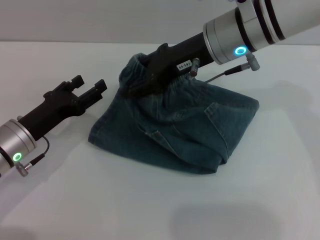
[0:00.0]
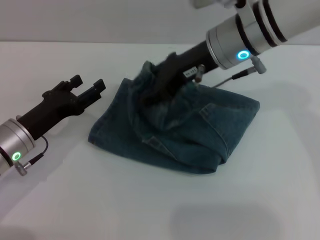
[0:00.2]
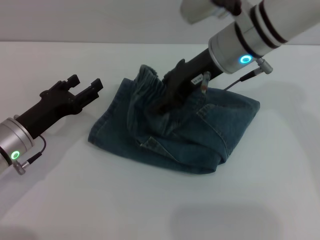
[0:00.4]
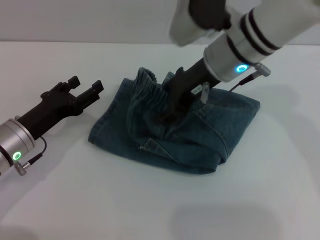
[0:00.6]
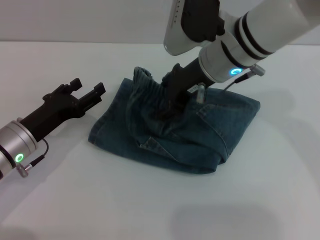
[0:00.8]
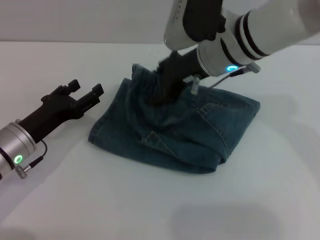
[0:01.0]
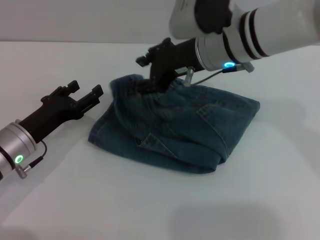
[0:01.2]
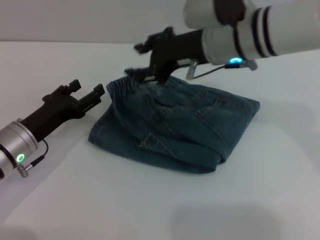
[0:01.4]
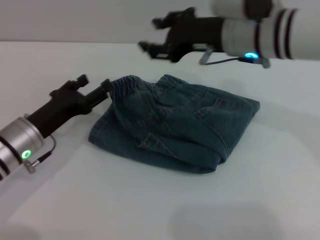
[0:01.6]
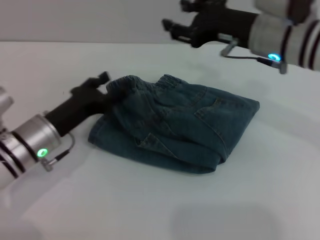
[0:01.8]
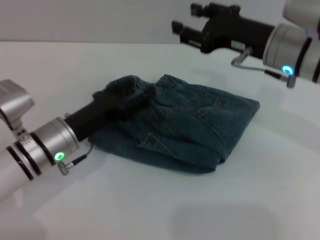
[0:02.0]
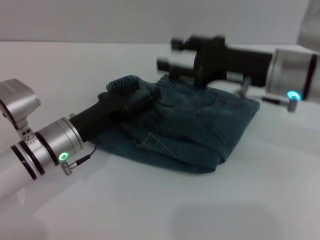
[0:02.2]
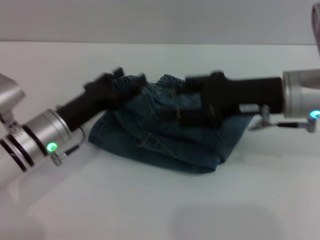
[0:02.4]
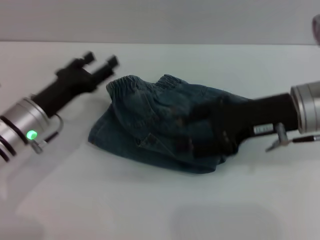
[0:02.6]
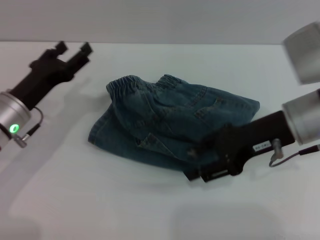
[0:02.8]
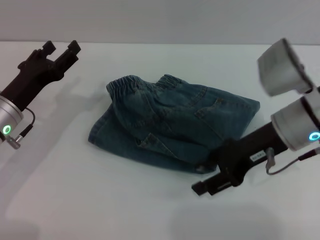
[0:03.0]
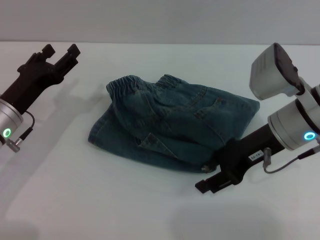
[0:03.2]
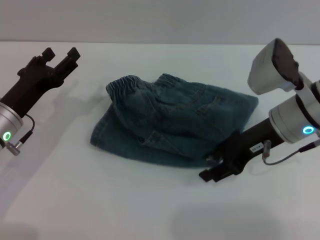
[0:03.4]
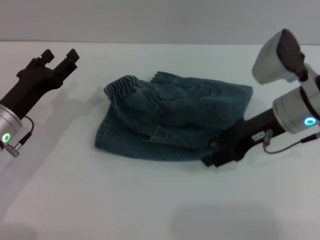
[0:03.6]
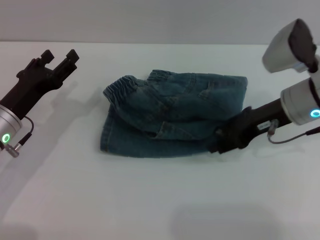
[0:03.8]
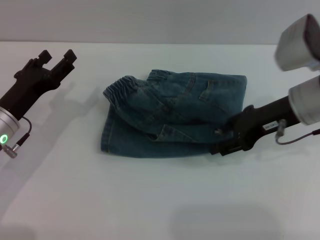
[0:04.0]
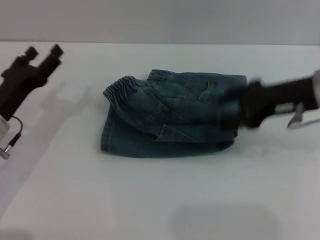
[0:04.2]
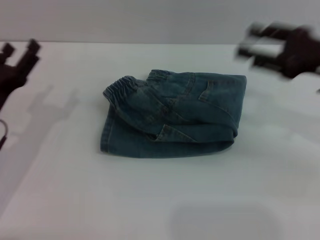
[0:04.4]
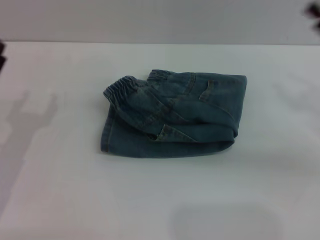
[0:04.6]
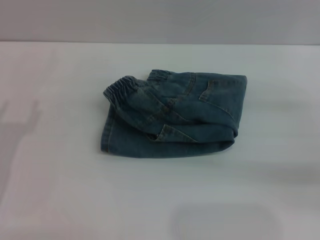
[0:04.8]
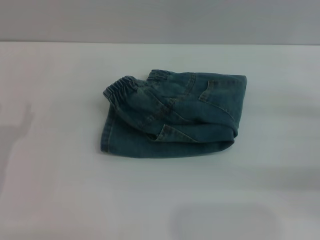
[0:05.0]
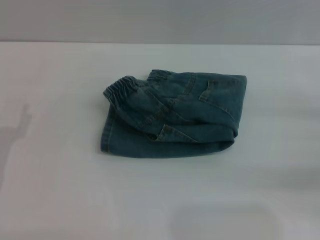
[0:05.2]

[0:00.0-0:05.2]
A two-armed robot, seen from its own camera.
Step, 1.6 to 4.2 s: Place the folded trousers onto the center area with the right grippers.
0.0 to 1.8 s: The right gripper travels to the right by roughly 5 cm.
1.8 to 3.4 s: The right gripper heads downward, covering roughly 5 cm.
3.4 to 5.2 s: The right gripper goes roughly 20 cm to the right. The left gripper moves backward and to the left, approximately 10 cm.

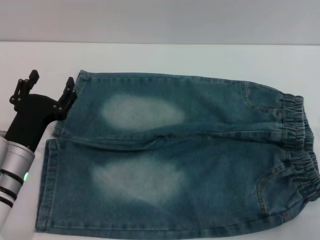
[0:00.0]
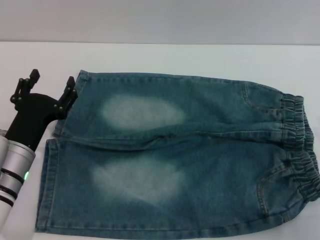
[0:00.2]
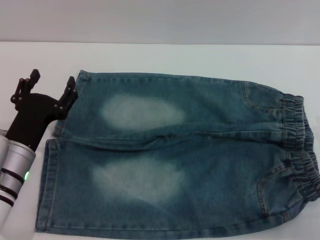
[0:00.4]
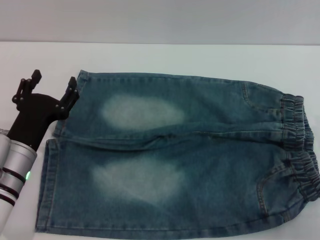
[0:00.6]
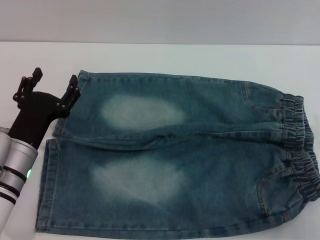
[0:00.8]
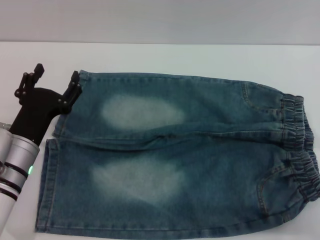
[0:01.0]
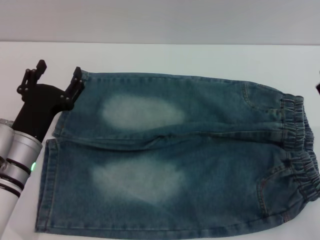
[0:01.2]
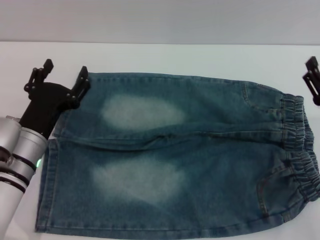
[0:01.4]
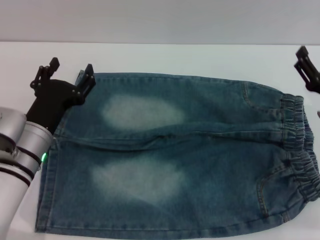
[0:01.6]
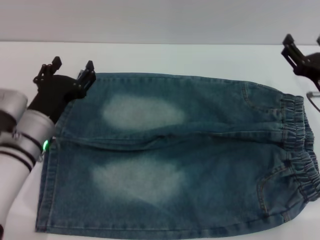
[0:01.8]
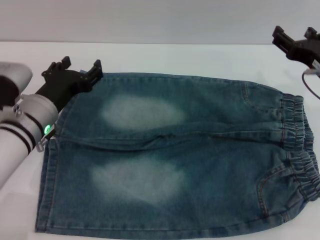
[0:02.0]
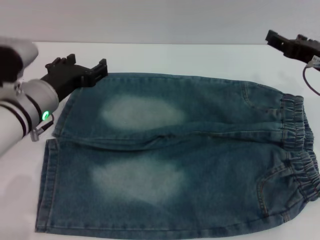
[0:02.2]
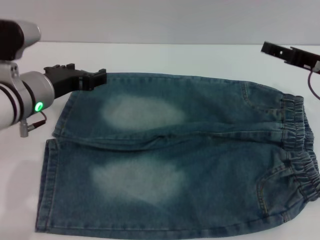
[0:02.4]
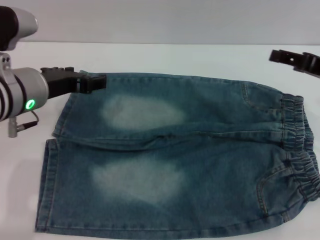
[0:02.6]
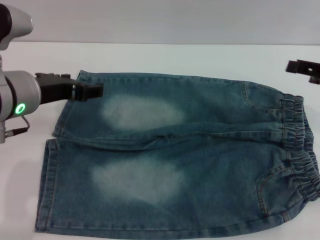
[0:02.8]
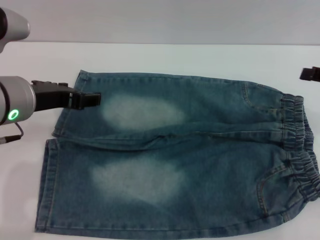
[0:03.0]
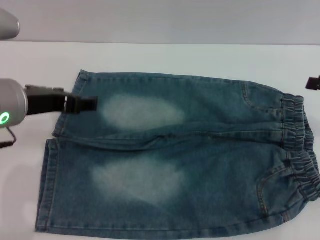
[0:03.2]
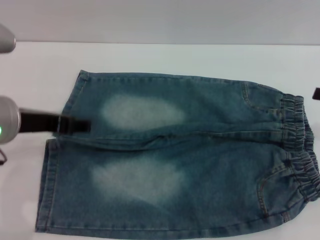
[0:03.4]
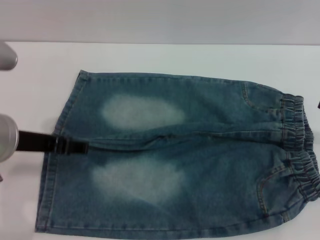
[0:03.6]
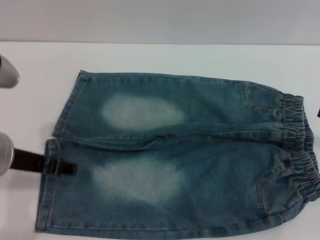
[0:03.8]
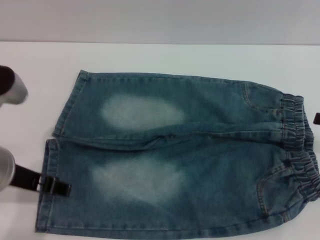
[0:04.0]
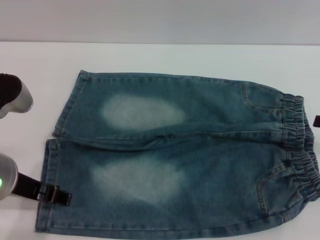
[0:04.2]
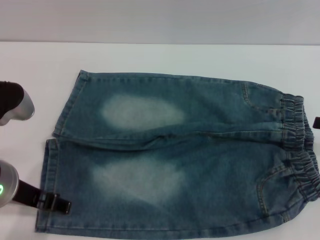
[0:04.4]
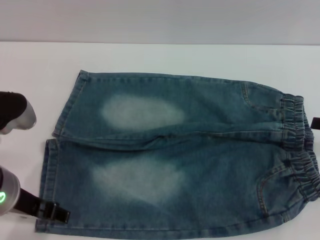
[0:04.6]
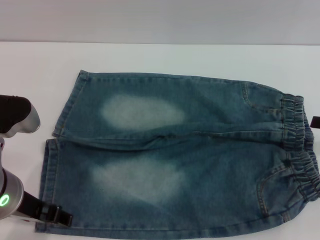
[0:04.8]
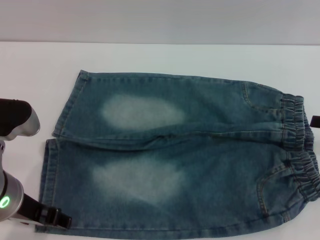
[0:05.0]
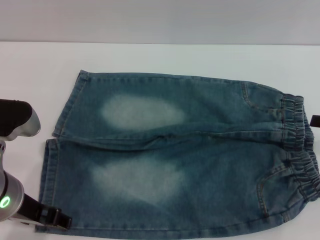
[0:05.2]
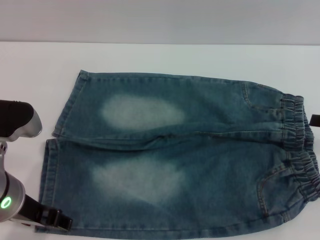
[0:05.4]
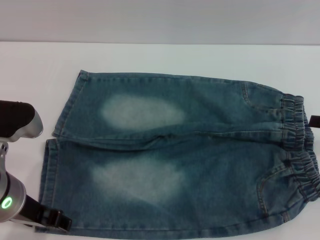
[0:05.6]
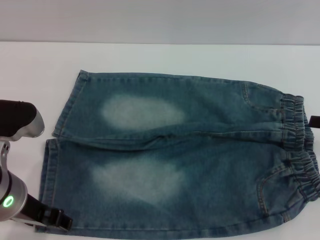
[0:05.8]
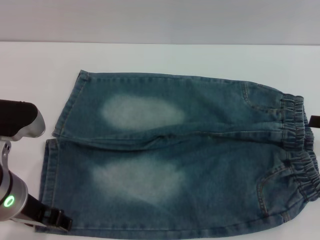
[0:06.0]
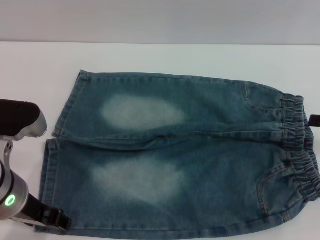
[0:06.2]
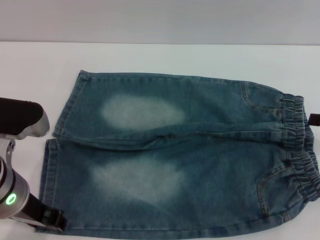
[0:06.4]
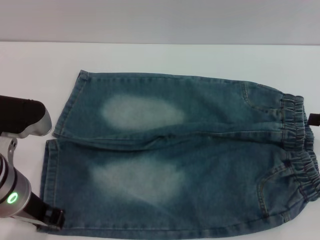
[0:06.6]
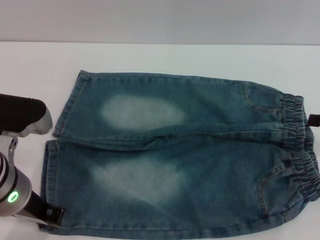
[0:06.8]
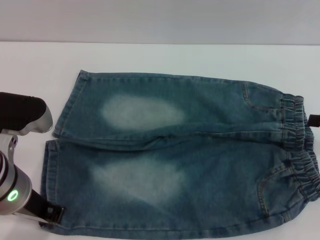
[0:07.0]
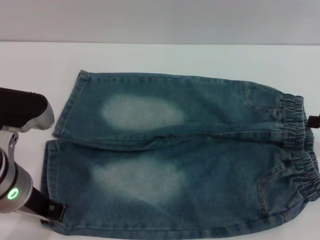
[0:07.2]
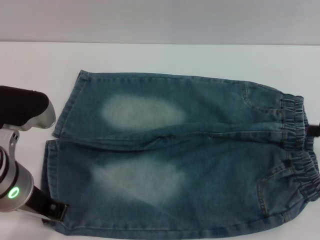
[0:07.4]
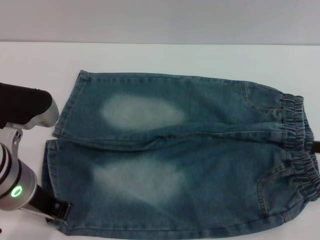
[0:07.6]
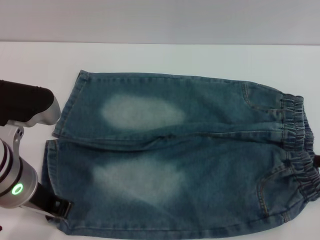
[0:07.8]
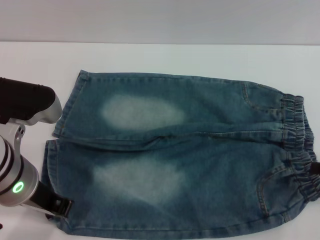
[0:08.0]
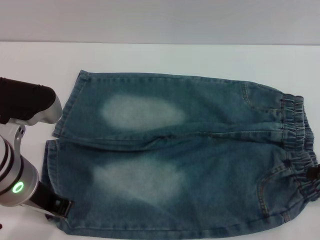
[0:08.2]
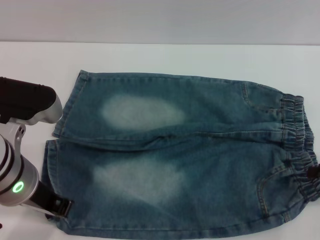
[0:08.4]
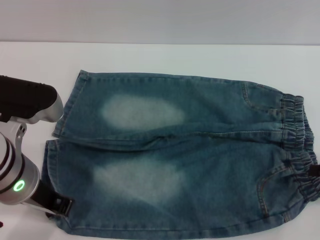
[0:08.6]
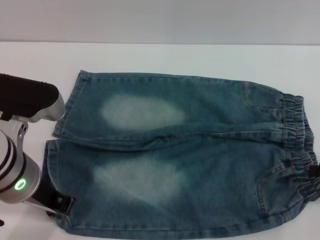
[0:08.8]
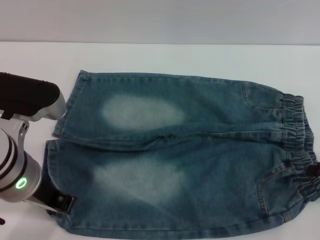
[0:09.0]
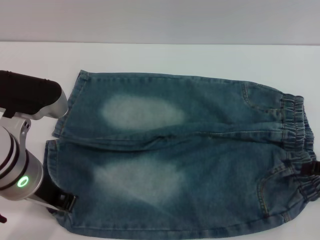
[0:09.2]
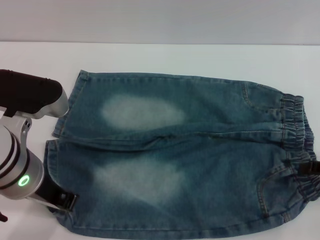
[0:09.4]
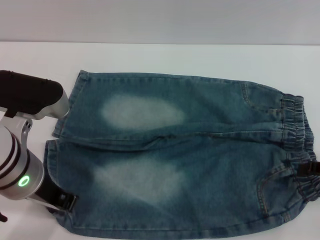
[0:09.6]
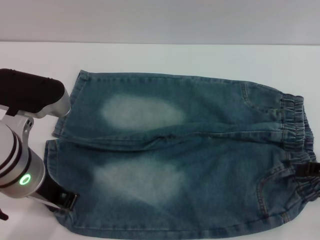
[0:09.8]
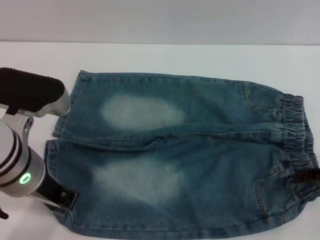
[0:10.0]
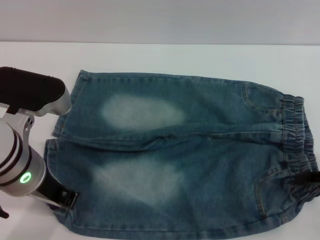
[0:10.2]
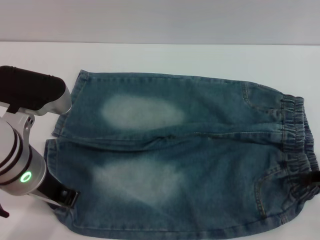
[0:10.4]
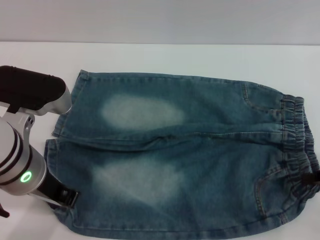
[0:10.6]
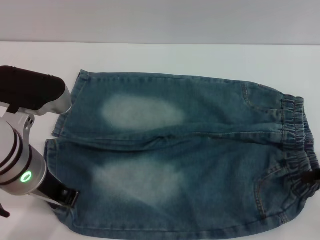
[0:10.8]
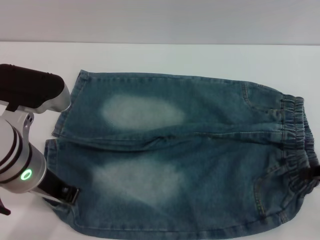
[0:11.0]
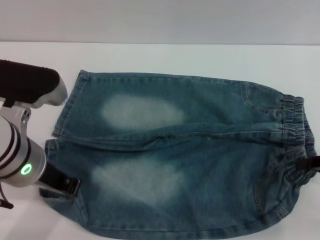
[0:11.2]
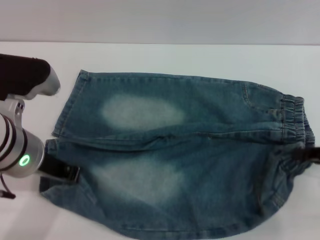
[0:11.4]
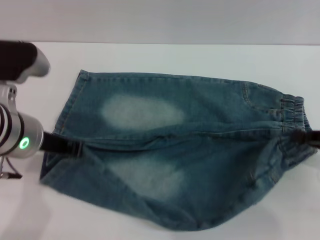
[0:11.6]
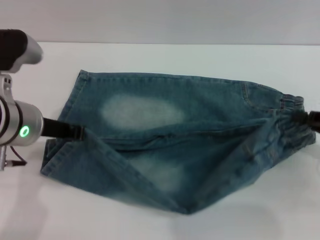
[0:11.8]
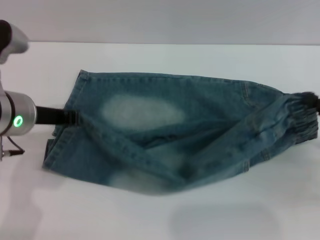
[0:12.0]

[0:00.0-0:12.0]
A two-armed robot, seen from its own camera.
0.0 to 1.6 s: The right gripper travels forward by about 10 cm.
1.6 to 3.0 s: The left gripper heads upward, covering roughly 15 cm, while the right gripper is displaced upward and to the right by roughly 15 cm.
3.0 to 4.4 s: The left gripper is displaced backward by roughly 5 cm.
4.4 to 6.0 s: The grippers move only a little.
6.0 to 7.6 s: The left gripper closes up.
7.6 to 9.0 s: There are only small adjustments of the grippers.
9.0 to 10.4 s: The right gripper closes.
10.4 to 12.0 s: The left gripper changes place by approximately 5 cm. The right gripper closes its fingers.

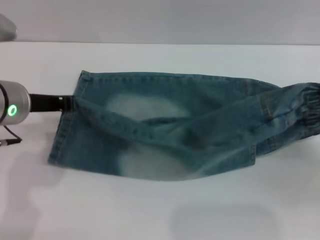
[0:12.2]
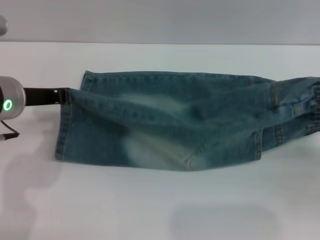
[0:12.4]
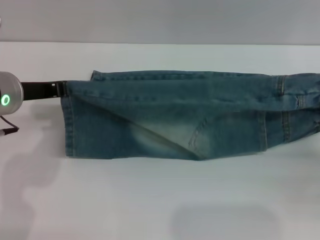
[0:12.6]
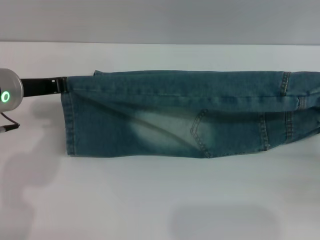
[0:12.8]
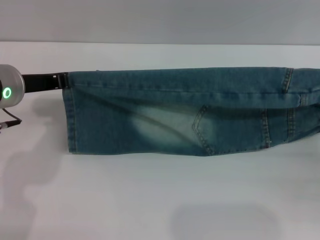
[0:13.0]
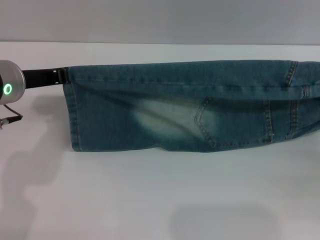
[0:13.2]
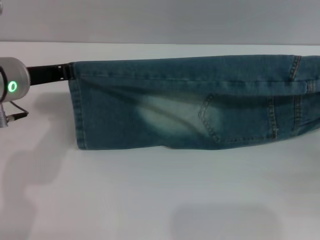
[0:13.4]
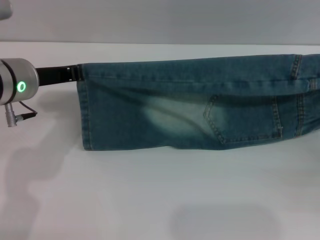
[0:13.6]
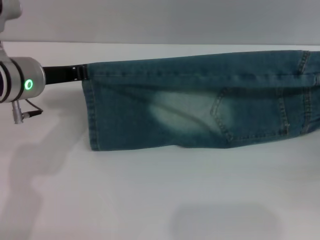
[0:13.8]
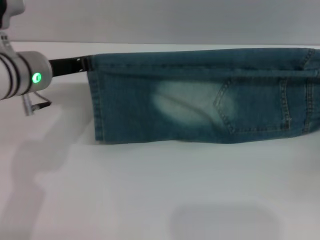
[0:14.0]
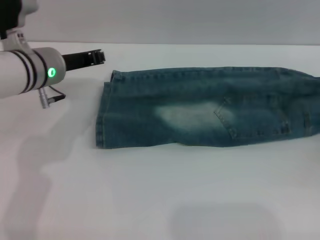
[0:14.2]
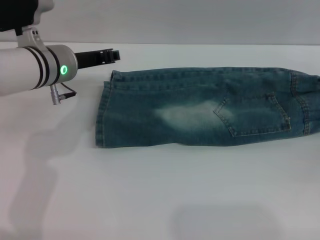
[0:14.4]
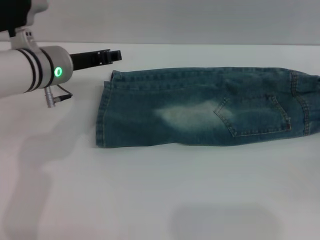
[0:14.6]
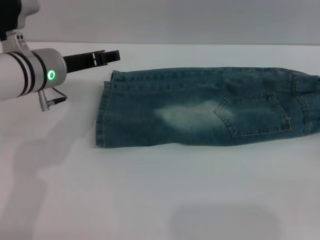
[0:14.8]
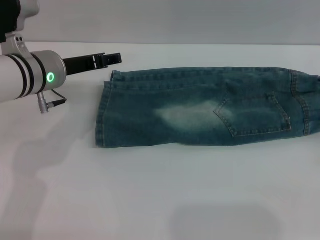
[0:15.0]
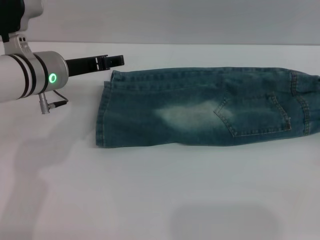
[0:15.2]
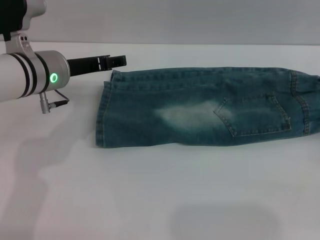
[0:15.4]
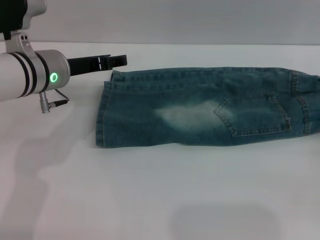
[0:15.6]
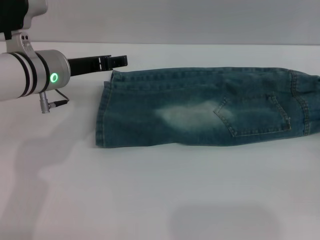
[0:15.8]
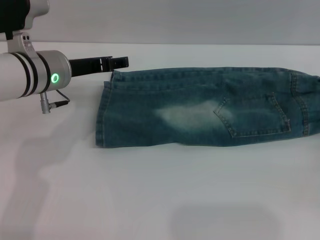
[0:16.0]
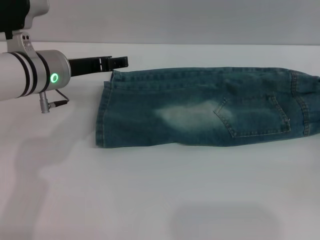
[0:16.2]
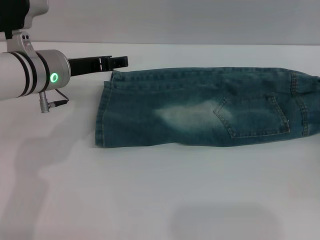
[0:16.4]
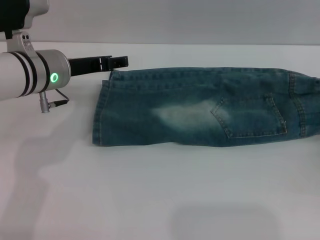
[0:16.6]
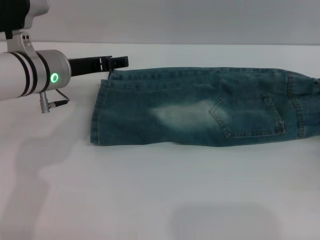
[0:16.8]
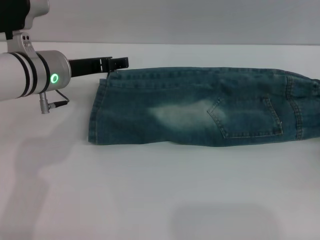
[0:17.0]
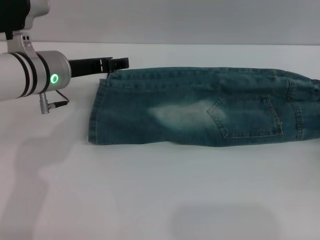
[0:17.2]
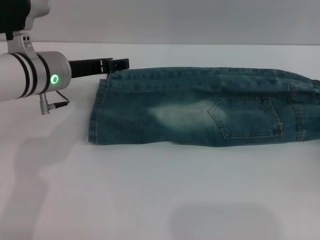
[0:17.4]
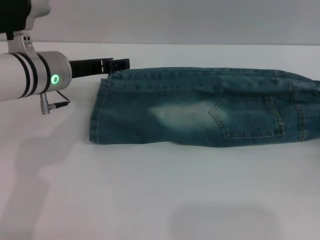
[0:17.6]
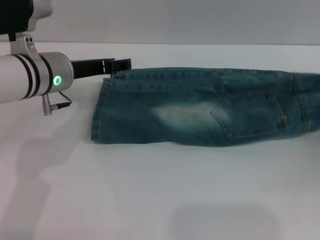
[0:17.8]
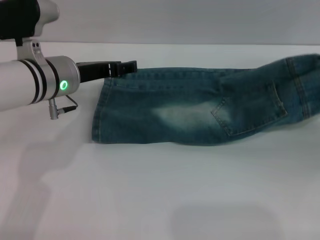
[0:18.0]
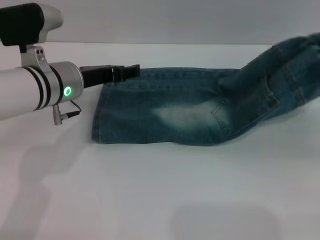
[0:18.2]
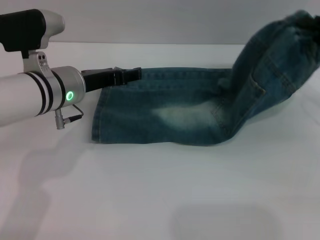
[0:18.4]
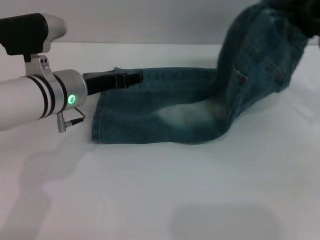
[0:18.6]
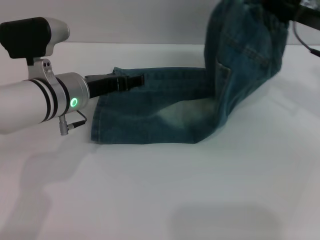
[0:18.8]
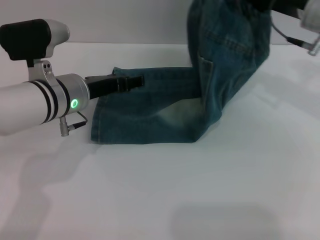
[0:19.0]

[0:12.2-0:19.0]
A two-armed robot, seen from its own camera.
Step, 12.2 to 16.4 s: Fold the bottom of the pants upward with both grippers.
13.6 to 15.0 s: The right gripper changes place by some 5 cm, and opens; the left gripper ends up roughly 5 cm from where it was, and opens up.
15.0 to 16.2 s: The grippers stay close to where they were, moving slightly.
16.2 to 17.6 s: The right gripper closes up.
17.6 to 19.0 s: The right gripper travels to the left, upward and forward by some 25 cm.
